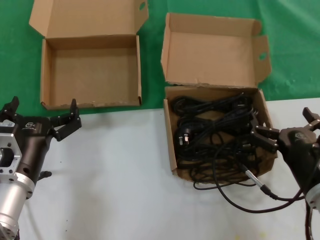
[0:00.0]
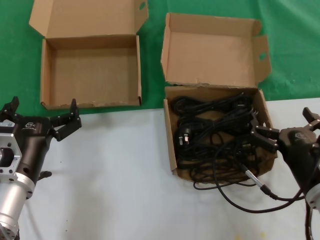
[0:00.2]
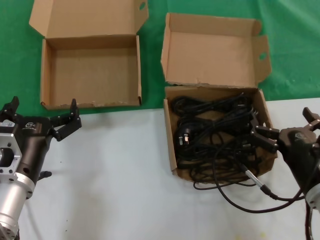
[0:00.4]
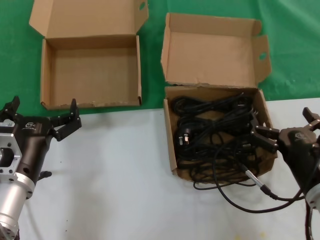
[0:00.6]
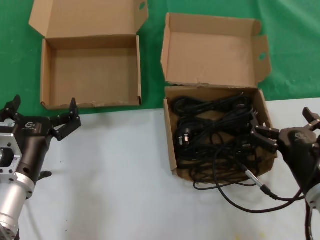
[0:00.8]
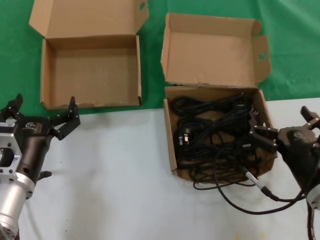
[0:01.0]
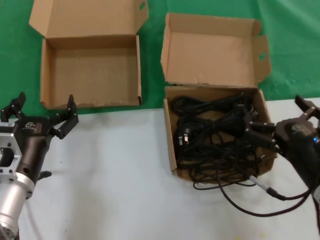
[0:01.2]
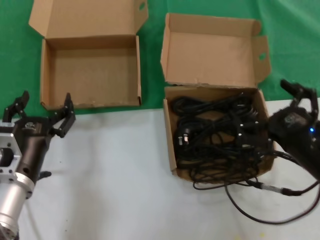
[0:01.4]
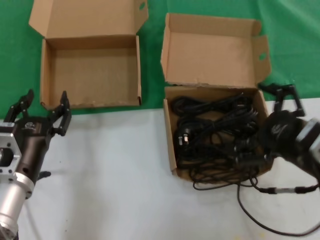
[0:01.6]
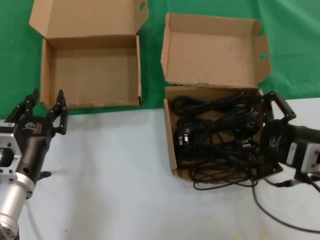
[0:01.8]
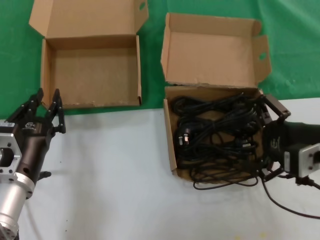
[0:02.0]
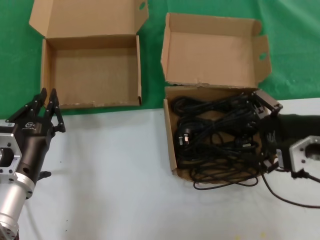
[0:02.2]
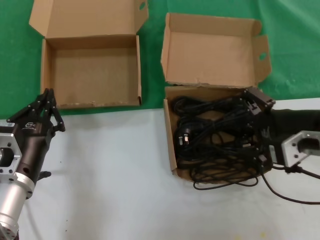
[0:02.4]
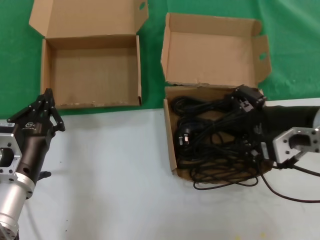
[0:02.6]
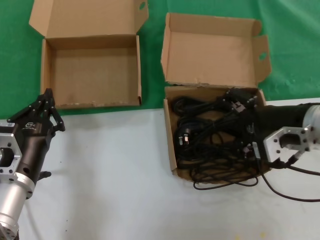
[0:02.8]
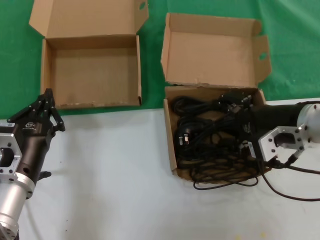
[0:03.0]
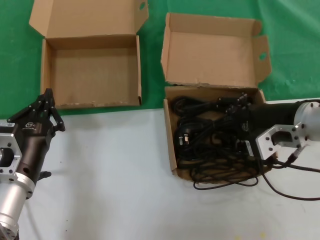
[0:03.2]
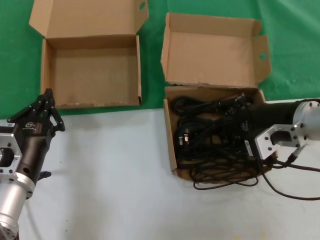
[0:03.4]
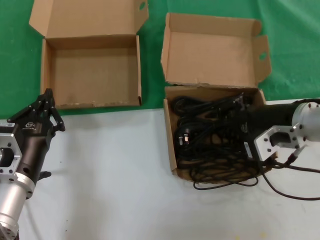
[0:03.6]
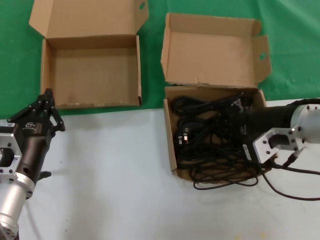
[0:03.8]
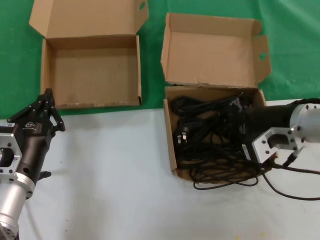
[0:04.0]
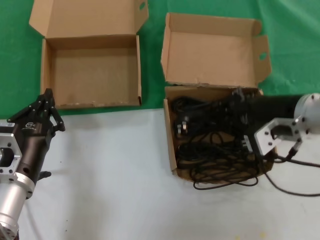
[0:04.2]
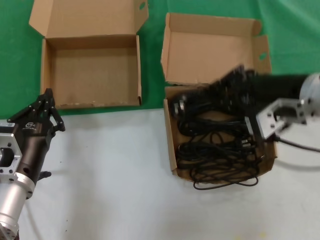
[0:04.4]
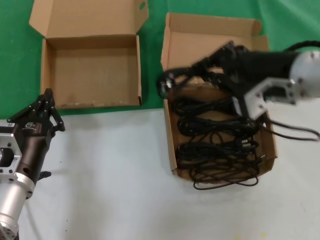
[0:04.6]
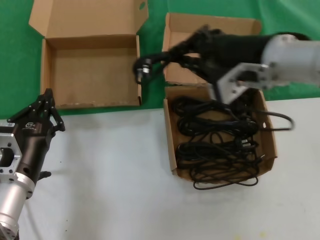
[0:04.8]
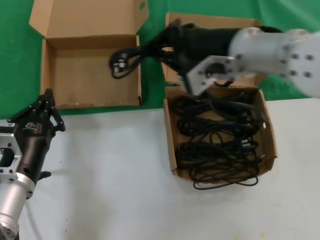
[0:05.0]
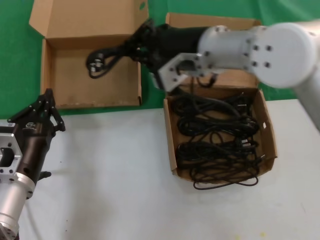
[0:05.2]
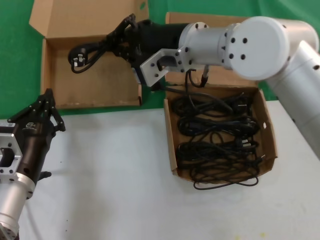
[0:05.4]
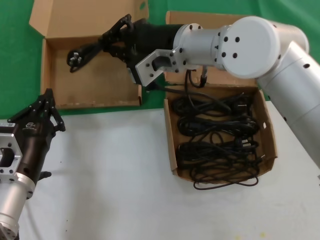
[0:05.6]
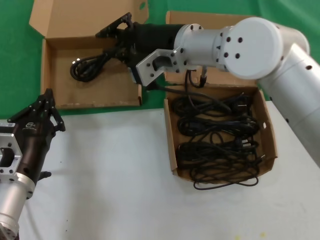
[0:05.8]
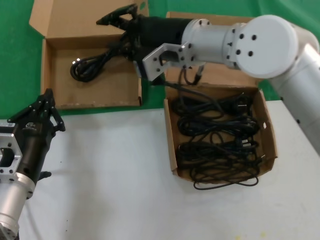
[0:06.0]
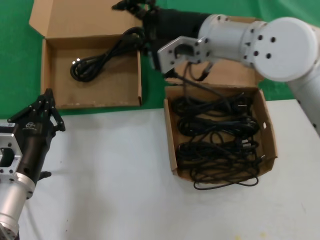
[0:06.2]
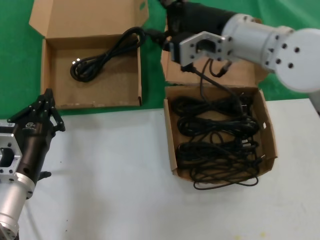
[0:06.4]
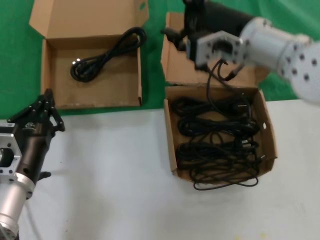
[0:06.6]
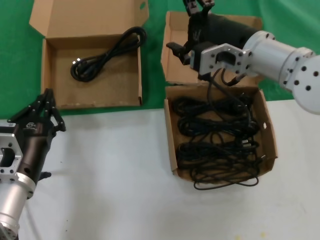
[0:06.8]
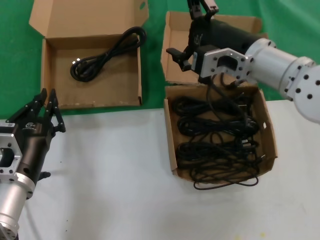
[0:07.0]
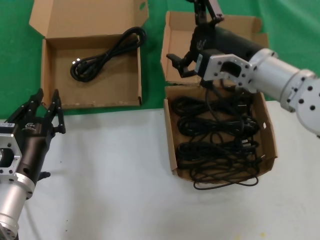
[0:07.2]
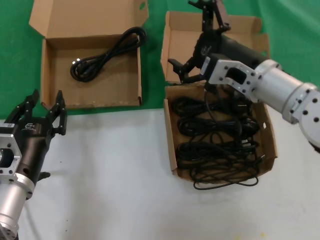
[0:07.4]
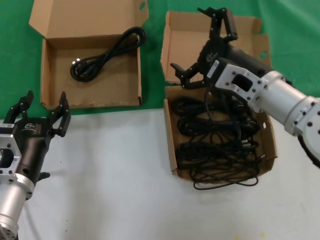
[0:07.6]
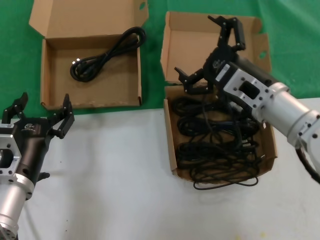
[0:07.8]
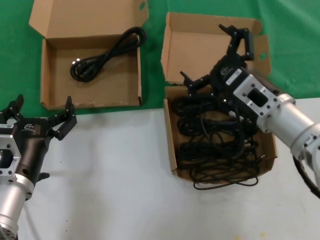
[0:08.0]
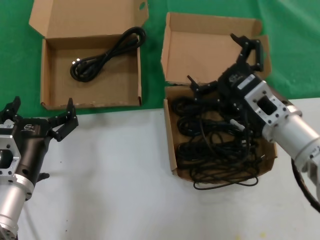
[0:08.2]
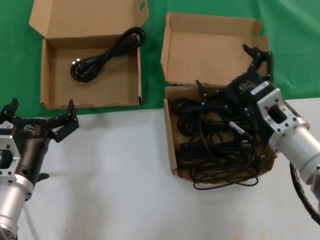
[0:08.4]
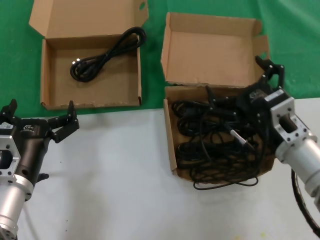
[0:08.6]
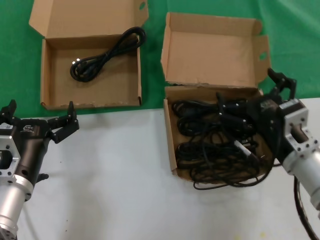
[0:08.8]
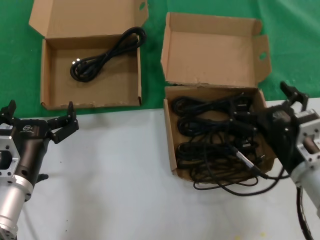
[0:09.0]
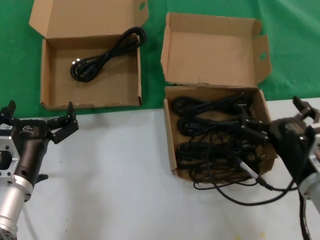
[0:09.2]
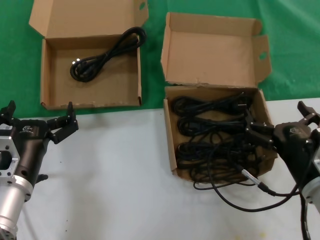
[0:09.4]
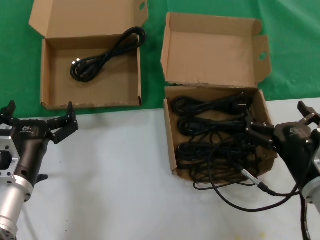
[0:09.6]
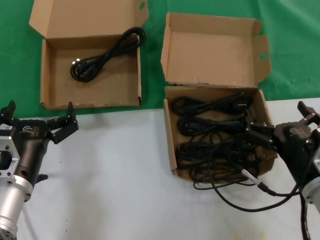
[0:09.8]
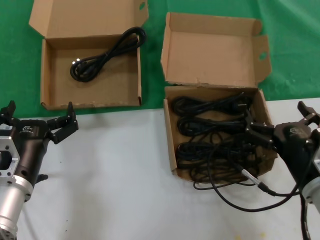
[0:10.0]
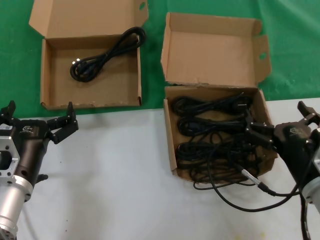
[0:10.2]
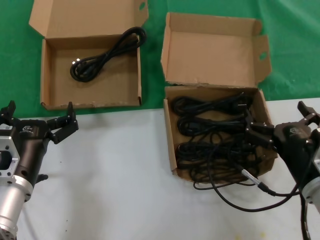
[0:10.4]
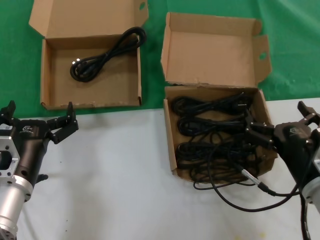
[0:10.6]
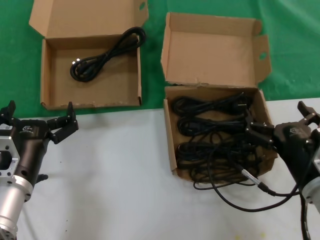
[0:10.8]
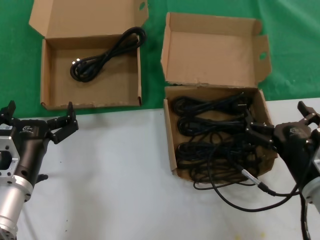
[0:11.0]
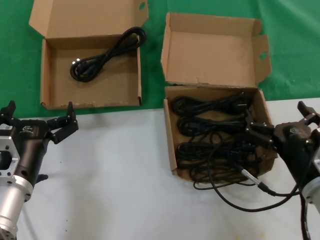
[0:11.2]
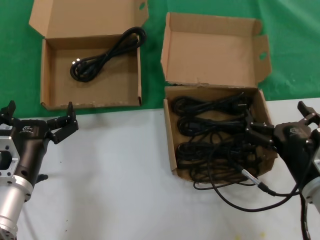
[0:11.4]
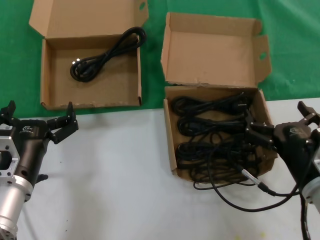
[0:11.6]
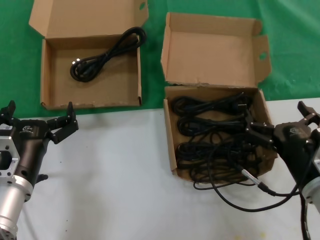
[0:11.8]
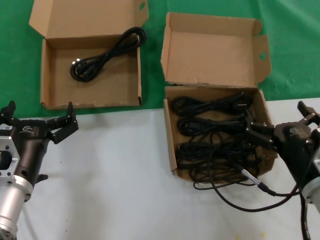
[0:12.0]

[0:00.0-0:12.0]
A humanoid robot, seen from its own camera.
Task of the whole recording: take the parts from the box containing them and put them into an empty box.
Step, 0:00.0 to 0:03.8: Grasp the data cable.
Step, 0:04.2 to 0:05.8: Place the data cable in the another box.
0:00.0 to 0:01.6: The right hand is displaced upward by roughly 10 cm.
0:01.6 to 0:03.0: The right hand moves forward, roughly 10 cm.
0:03.0 to 0:04.4: The right hand moves upward, roughly 5 cm.
0:04.4 to 0:06.0: The right hand shifts some 20 cm to the left and forward.
0:06.0 to 0:07.6: The right hand heads to the right, downward and backward, covering roughly 15 cm.
0:07.6 to 0:09.0: The right hand goes approximately 15 cm downward, backward and to the right.
0:09.0 to 0:10.4: The hands stay close to where they were, moving slightly.
0:10.4 to 0:12.0: Neither hand changes place.

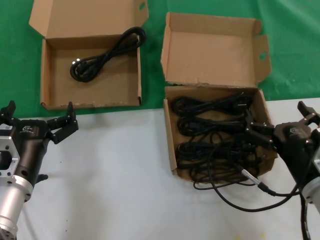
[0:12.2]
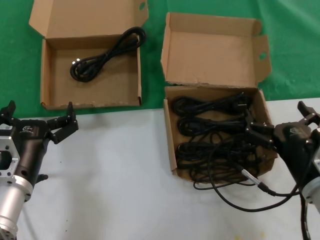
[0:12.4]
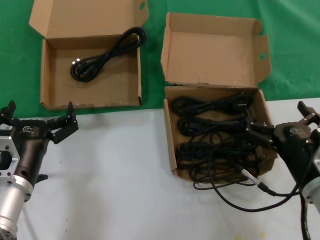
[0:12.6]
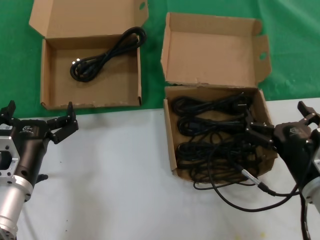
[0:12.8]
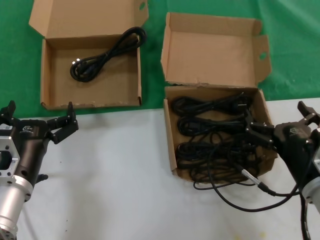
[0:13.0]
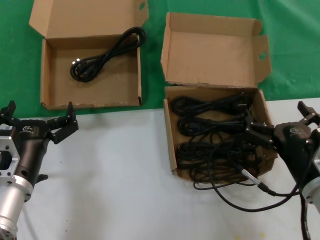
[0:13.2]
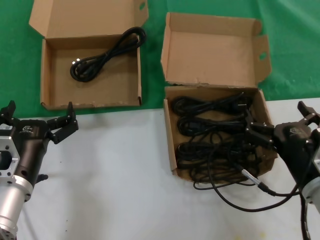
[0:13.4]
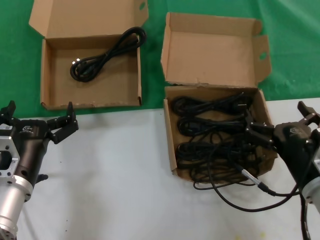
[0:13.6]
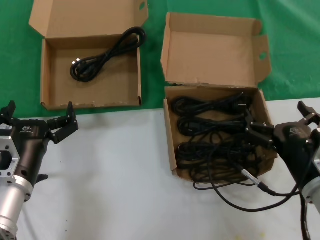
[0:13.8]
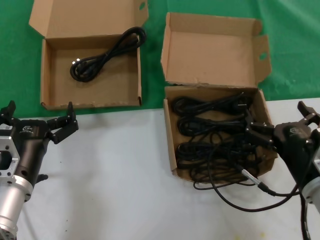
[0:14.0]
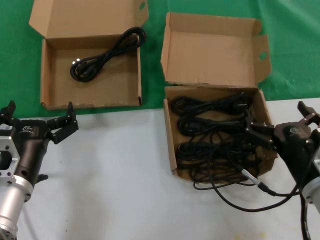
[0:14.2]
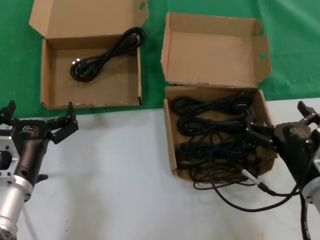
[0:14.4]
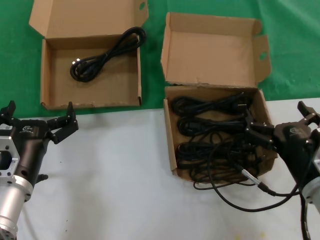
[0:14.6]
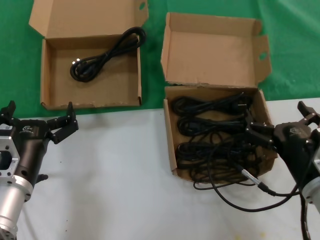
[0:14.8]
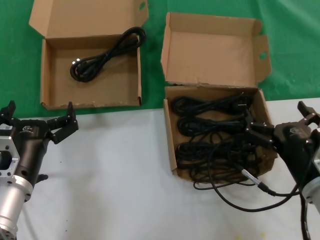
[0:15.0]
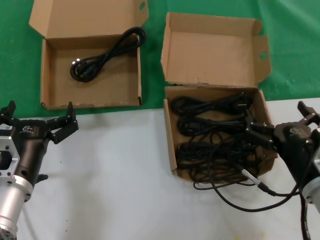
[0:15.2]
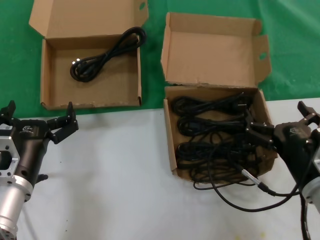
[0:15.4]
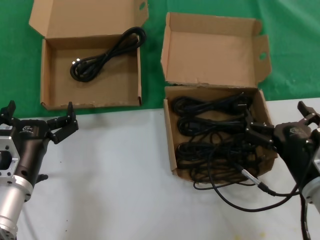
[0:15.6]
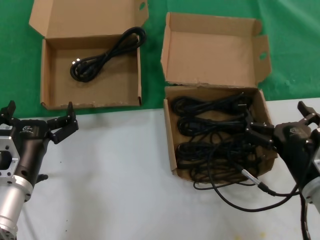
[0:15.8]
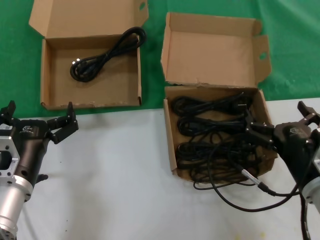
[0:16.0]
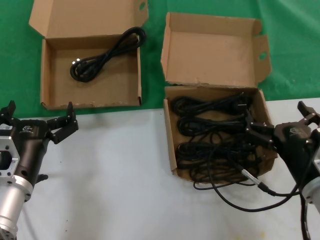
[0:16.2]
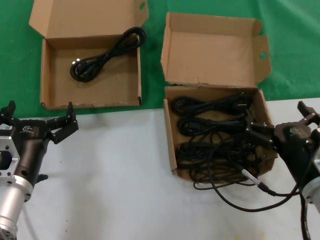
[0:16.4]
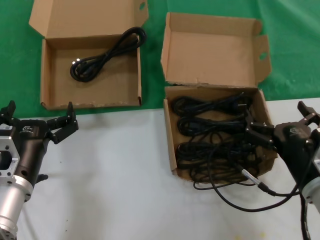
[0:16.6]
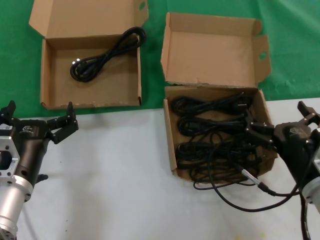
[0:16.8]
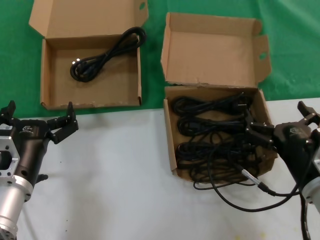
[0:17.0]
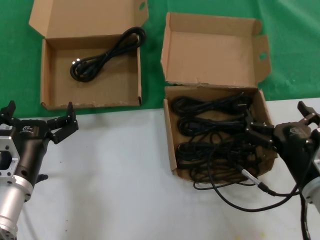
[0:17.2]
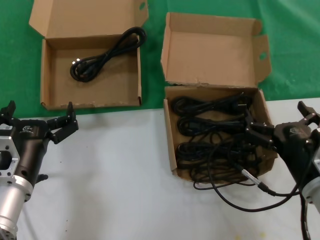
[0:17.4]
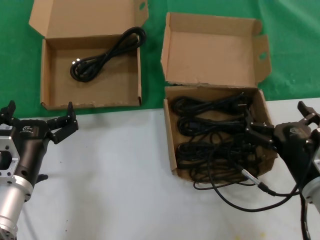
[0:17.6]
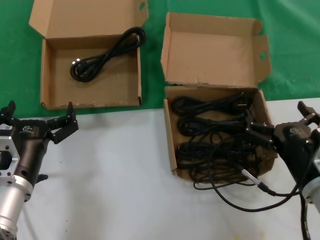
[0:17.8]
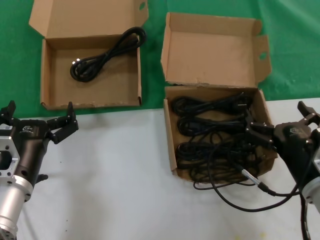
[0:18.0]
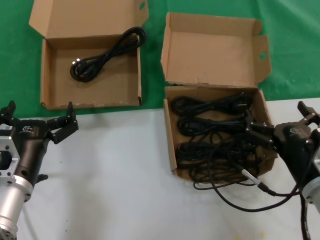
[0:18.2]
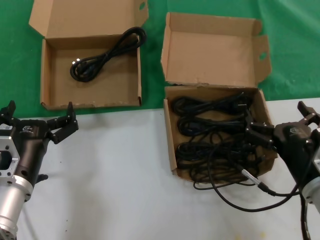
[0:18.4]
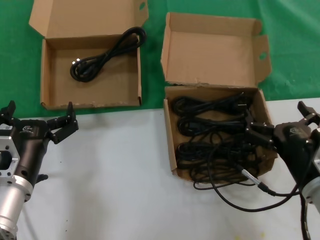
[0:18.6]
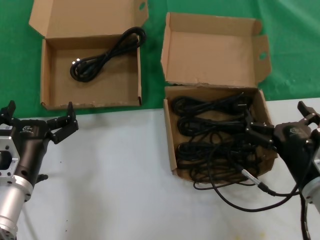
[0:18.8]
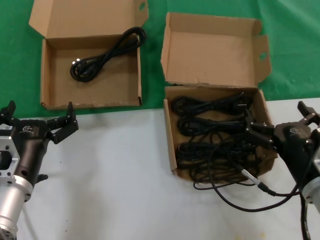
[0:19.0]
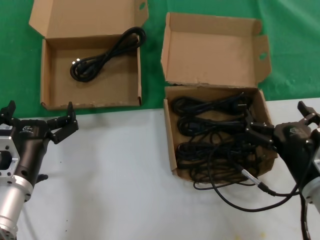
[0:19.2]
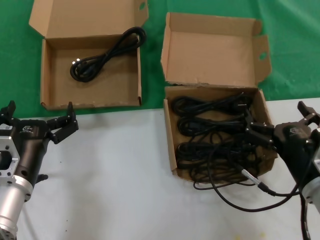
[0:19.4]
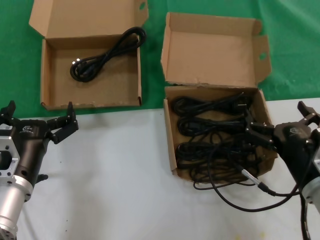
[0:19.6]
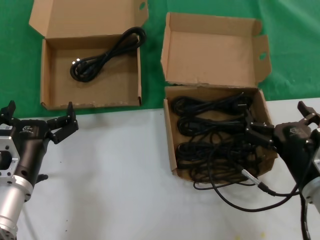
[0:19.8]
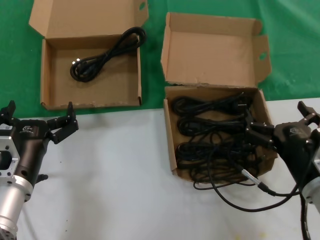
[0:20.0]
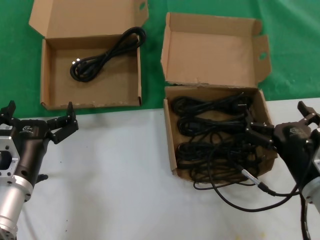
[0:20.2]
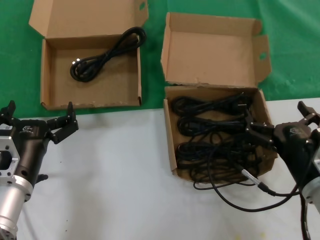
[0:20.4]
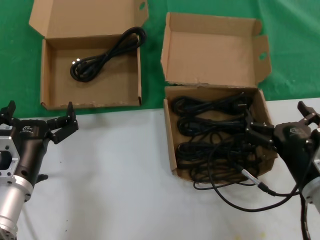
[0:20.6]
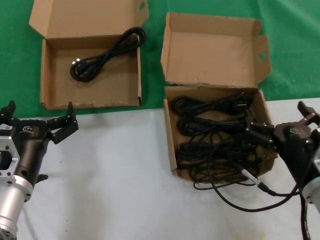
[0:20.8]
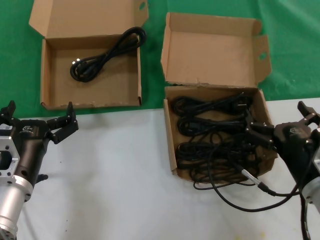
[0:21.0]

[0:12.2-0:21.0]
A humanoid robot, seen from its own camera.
Task of the whole recording: take the parts from the box containing them and put them into an empty box.
0:12.2 to 0:21.0: The two hands keep their place.
